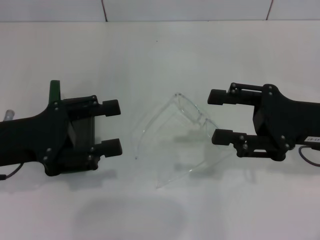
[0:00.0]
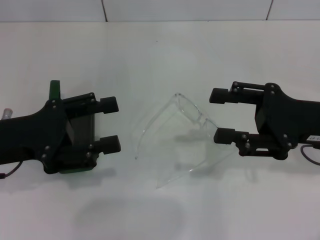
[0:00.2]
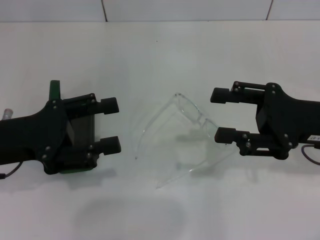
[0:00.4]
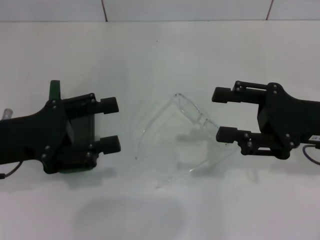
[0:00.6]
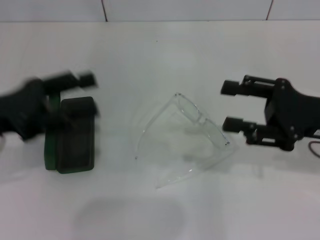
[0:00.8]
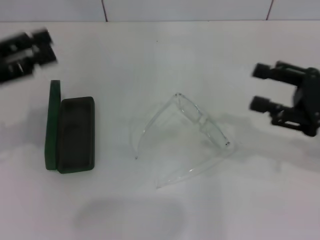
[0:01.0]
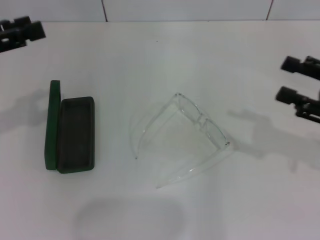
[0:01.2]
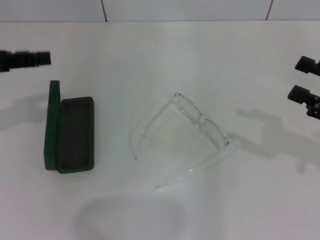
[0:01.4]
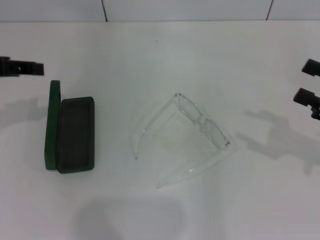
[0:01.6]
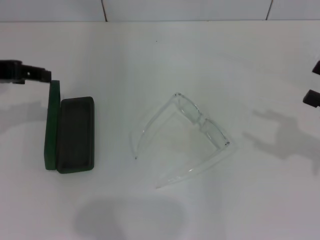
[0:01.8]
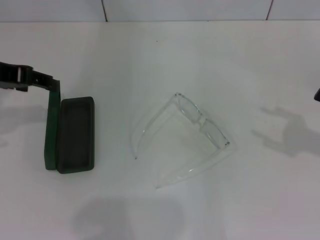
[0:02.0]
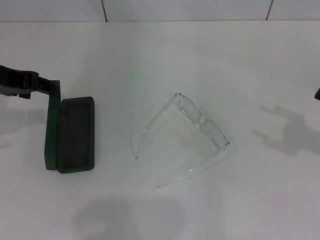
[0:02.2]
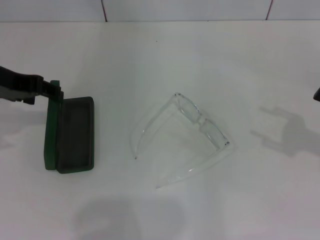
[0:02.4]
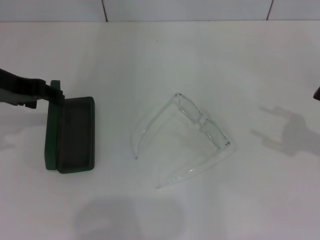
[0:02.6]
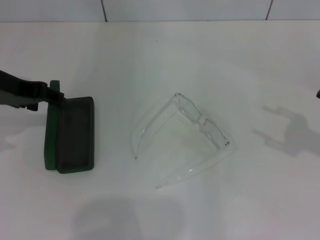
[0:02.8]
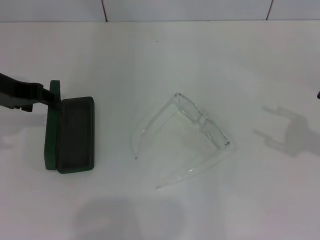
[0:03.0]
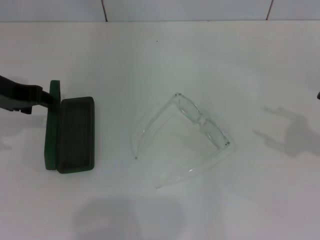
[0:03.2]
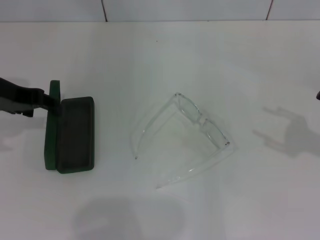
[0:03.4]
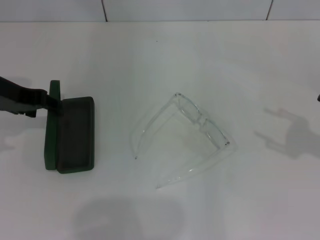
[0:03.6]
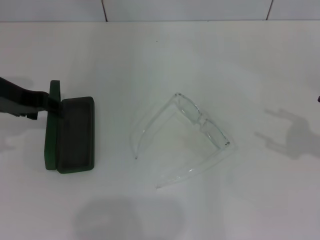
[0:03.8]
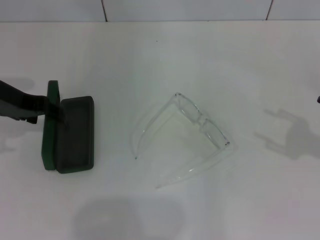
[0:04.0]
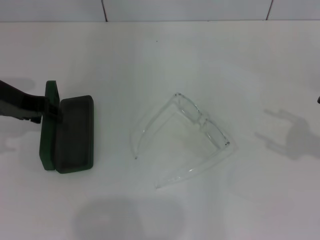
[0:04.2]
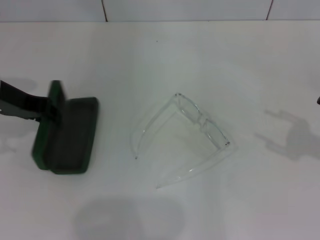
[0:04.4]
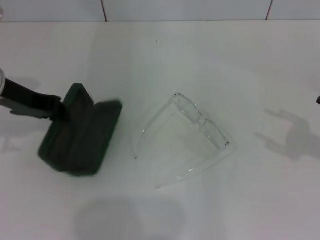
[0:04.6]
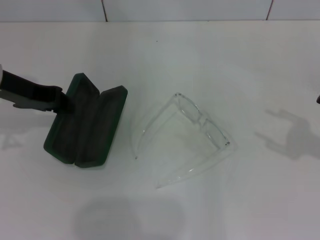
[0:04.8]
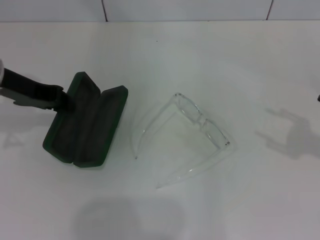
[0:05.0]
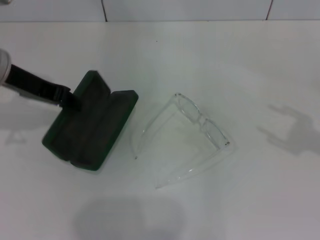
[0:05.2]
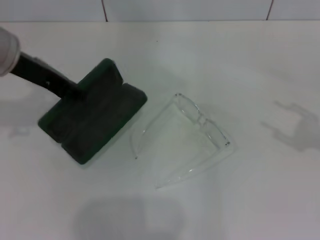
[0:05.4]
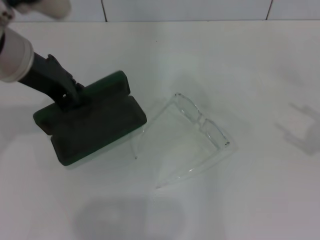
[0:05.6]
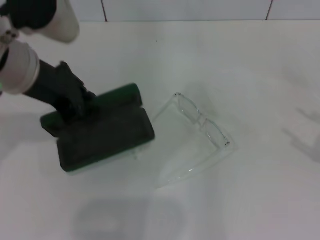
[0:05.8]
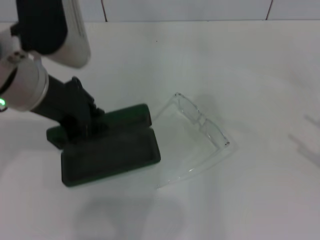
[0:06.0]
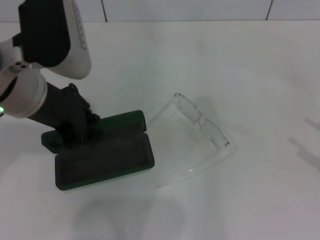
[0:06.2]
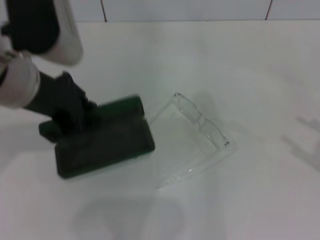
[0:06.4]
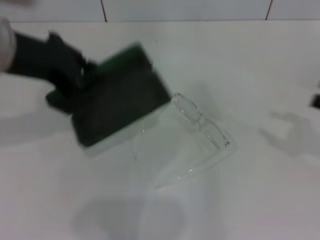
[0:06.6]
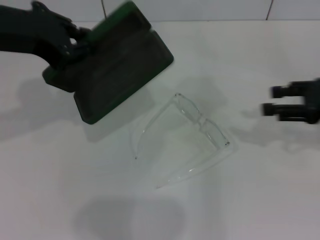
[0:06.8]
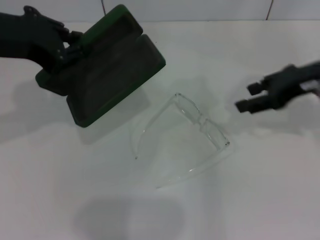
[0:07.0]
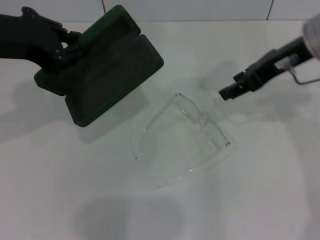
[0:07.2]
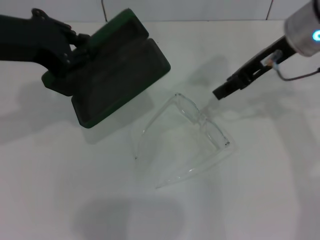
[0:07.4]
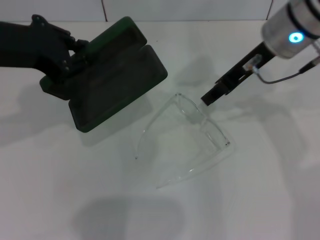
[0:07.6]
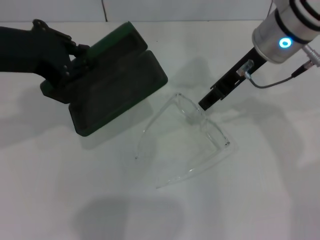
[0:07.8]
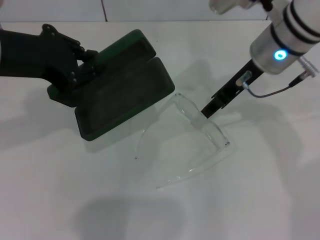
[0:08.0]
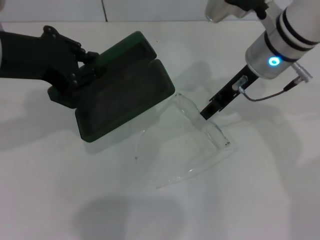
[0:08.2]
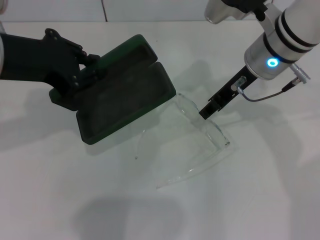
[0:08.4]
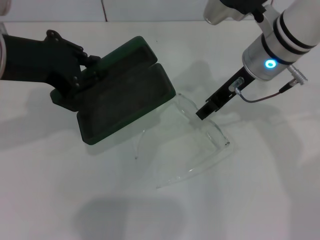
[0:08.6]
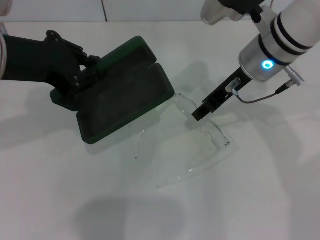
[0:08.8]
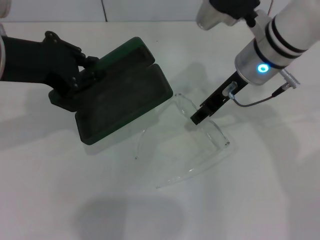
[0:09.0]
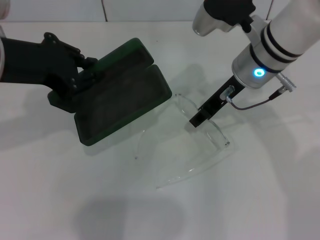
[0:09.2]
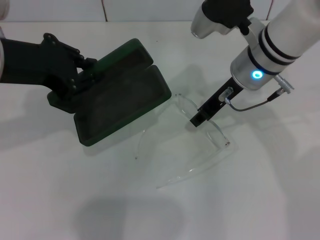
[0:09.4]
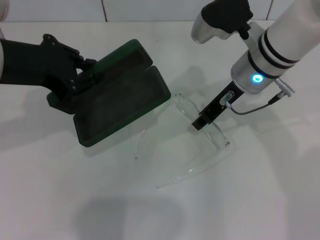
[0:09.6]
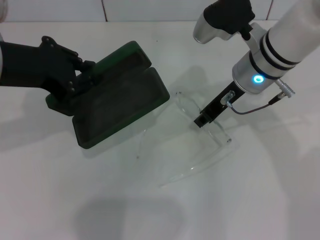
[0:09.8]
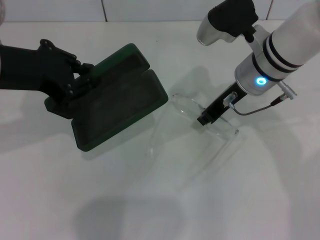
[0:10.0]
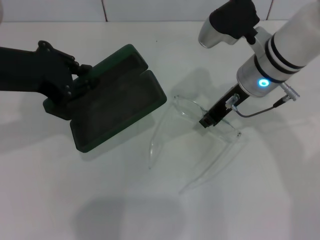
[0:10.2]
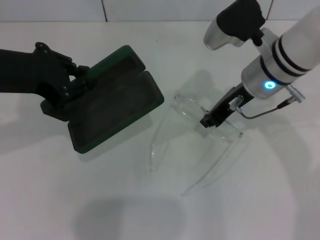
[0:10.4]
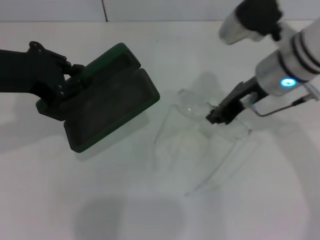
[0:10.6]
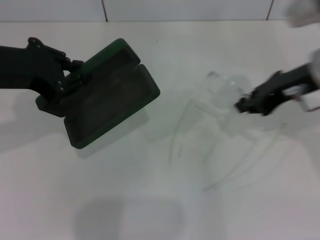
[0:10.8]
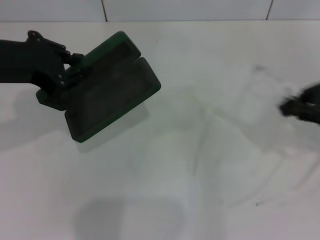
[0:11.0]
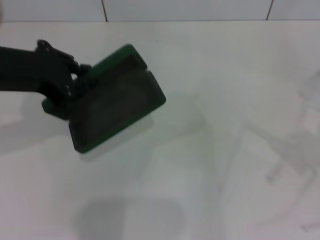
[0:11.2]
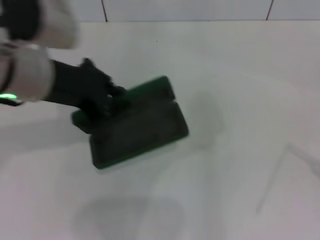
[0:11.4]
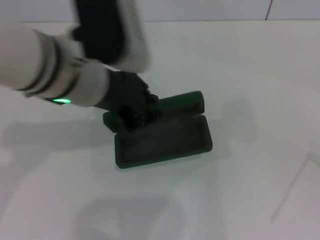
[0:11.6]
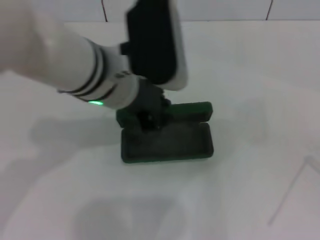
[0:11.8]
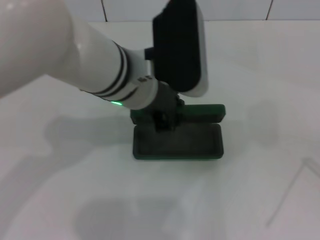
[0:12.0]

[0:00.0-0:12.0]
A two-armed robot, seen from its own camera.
Step, 0:00.0 to 0:04.0: Grab the glasses case with your left hand.
Step, 0:04.2 to 0:09.8: Grab the eyeglass frame with your right hand.
0:00.0 to 0:01.6: The left gripper heads upward and forward, covering about 10 cm; the right gripper shifts roughly 10 cm to the right.
0:01.6 to 0:03.0: The left gripper ends up approximately 5 cm from where it was.
0:03.0 to 0:04.4: The grippers make only small movements.
0:04.4 to 0:06.0: The left gripper travels to the right and upward by roughly 10 cm, and closes up. The right gripper shifts about 5 cm backward.
0:06.0 to 0:07.6: The right gripper moves to the left, forward and upward, roughly 35 cm, while the left gripper shifts by roughly 5 cm.
0:07.6 to 0:09.0: The right gripper travels downward by roughly 5 cm.
0:09.0 to 0:10.4: The right gripper closes its fingers.
0:10.4 to 0:12.0: The right gripper is displaced to the right and backward by approximately 40 cm, while the left gripper moves to the right, some 15 cm.

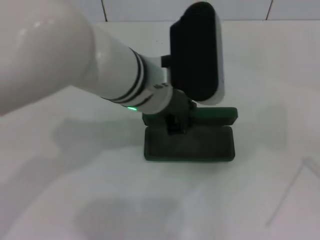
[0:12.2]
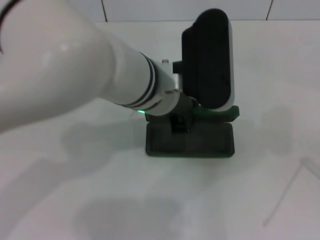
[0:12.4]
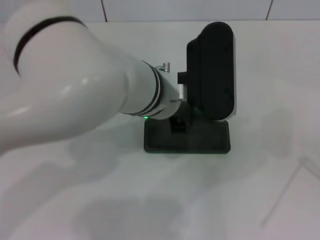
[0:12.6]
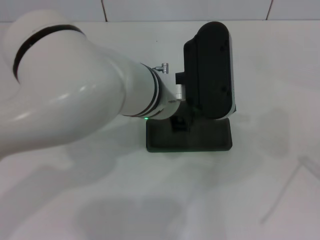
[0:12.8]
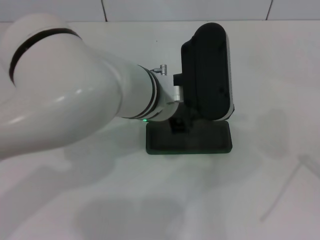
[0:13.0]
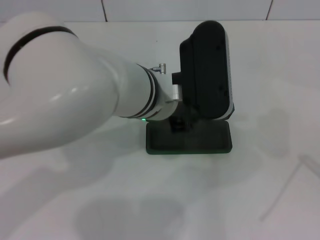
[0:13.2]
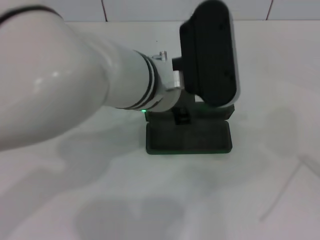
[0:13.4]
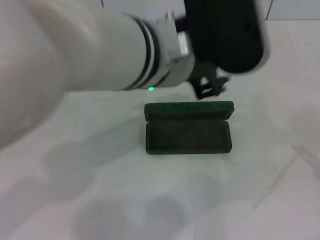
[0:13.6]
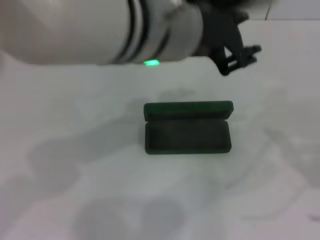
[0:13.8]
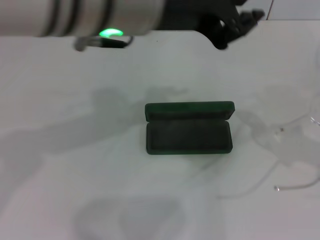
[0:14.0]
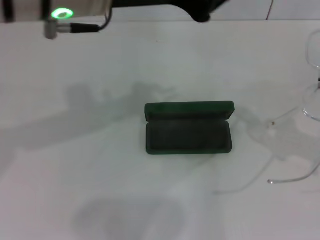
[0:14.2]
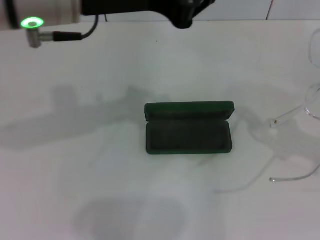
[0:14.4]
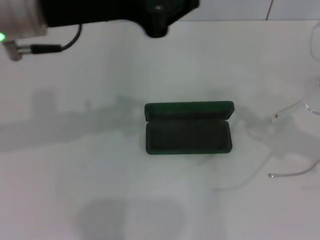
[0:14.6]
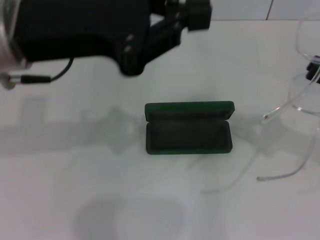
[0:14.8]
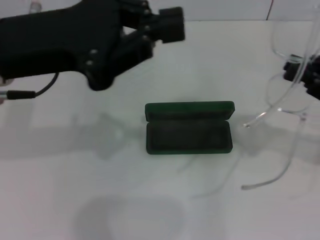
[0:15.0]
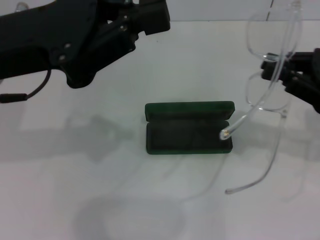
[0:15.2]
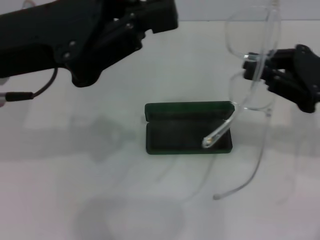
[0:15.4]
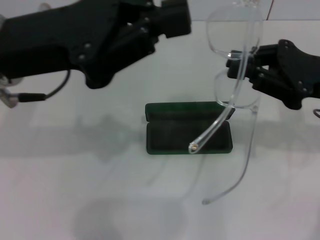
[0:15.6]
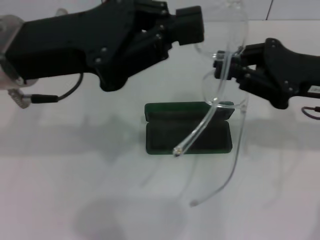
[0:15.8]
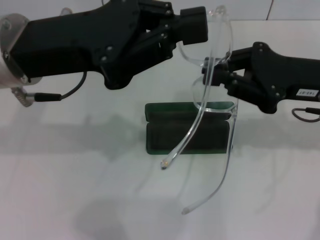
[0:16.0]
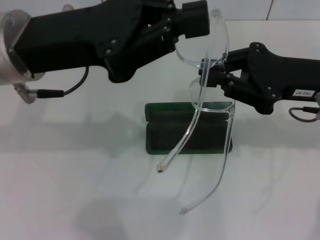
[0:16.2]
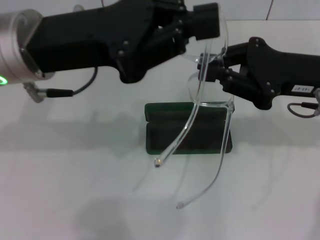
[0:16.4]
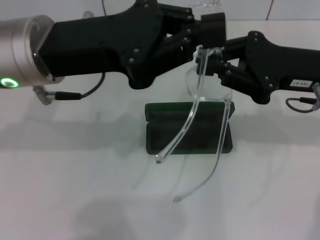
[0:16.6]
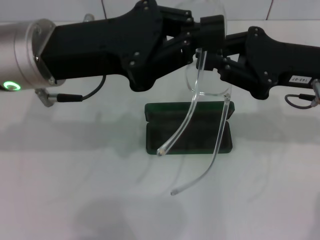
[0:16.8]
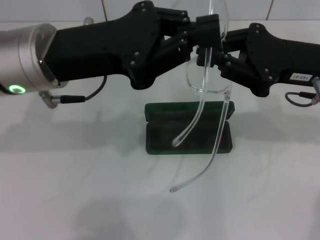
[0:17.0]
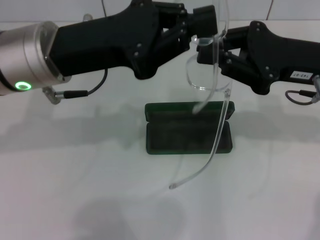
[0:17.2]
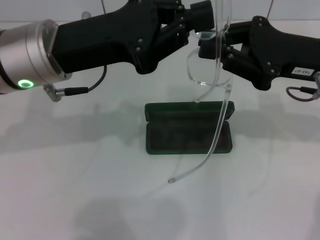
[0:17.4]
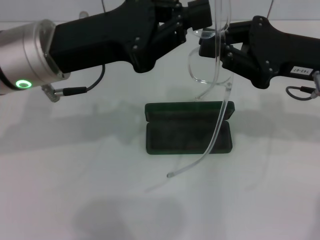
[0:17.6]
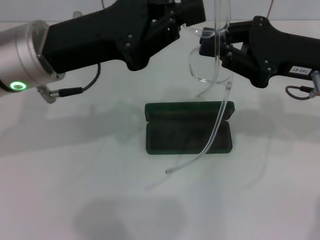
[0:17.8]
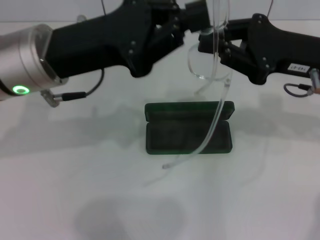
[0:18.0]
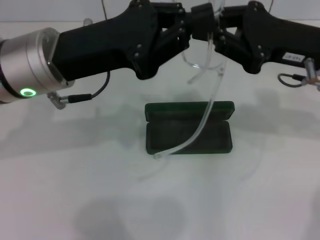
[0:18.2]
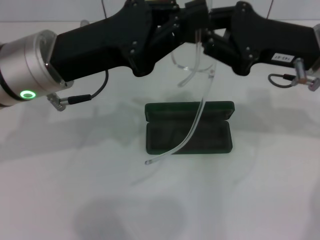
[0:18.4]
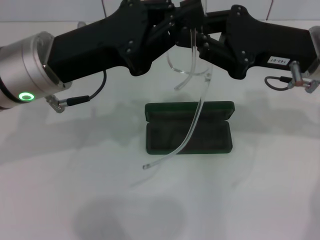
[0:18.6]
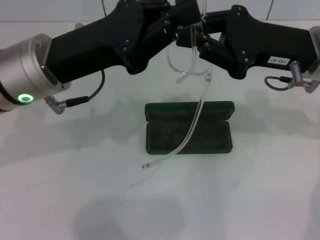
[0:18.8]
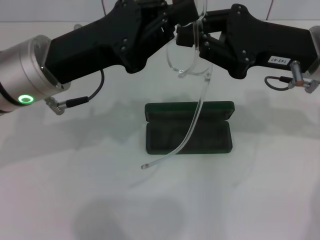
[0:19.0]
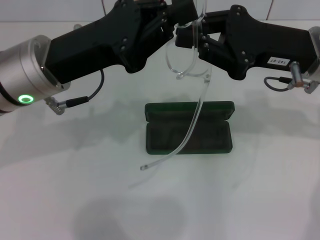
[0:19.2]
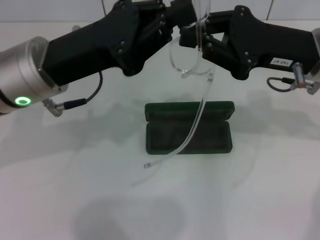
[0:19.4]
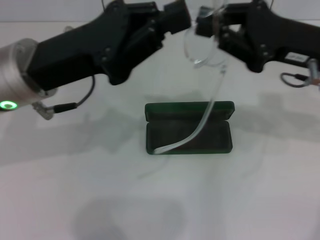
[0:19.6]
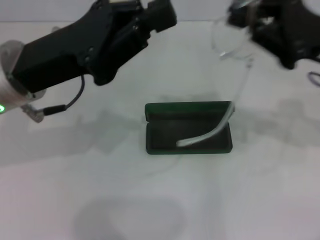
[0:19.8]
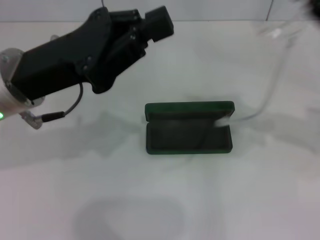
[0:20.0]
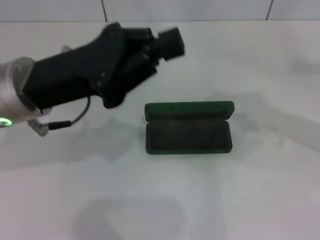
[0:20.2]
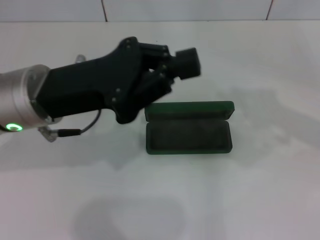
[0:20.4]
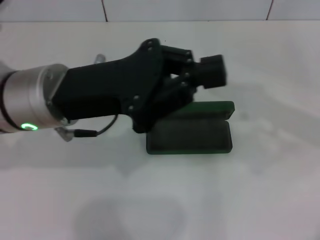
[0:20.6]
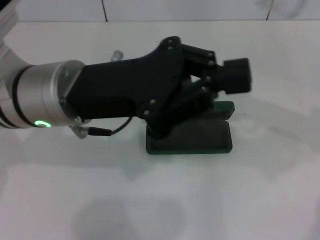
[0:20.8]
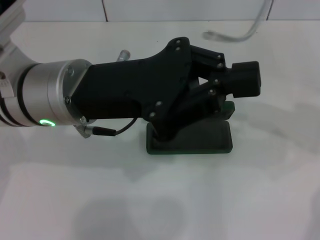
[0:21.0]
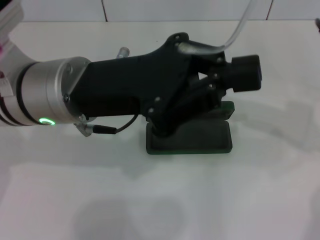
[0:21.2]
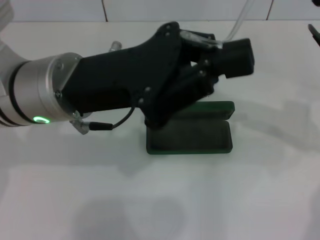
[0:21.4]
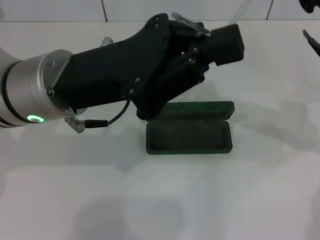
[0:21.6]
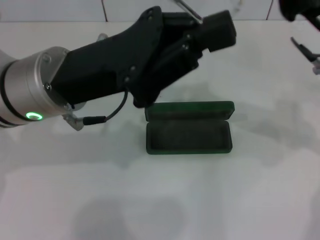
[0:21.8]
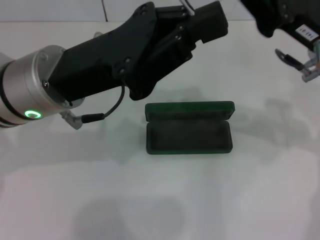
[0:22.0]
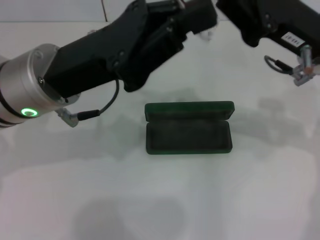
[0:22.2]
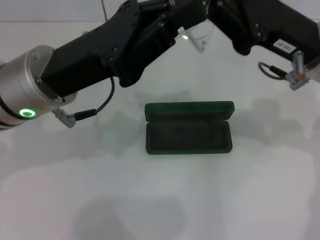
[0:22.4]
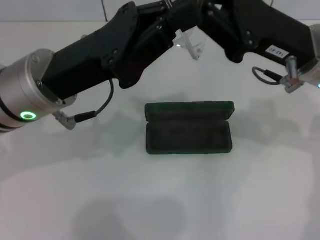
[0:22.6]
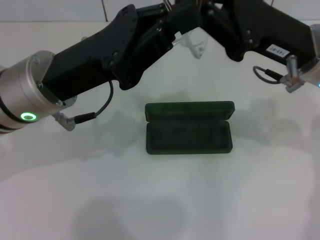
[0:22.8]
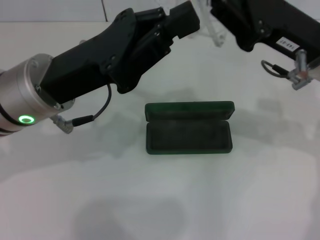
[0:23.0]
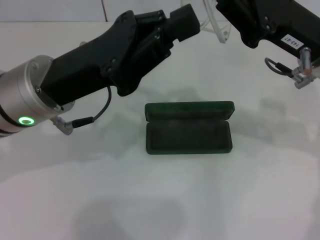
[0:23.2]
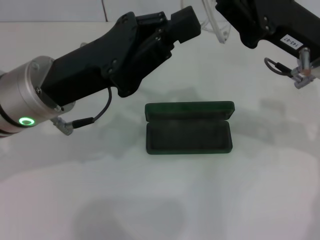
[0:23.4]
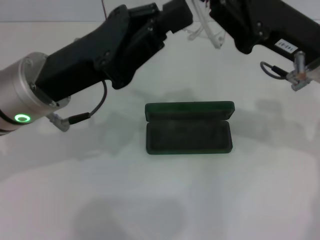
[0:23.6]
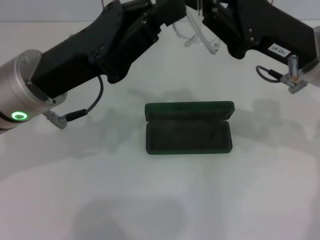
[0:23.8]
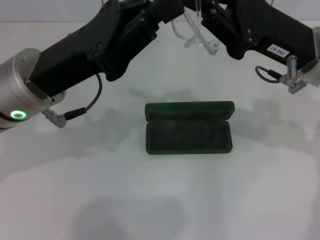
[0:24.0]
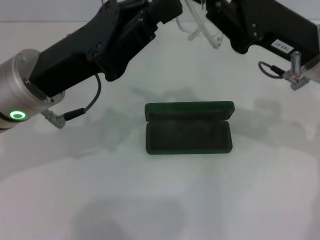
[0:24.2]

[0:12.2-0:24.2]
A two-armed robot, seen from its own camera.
0:12.2 to 0:13.8: The left gripper goes roughly 10 cm upward, and opens its fingers.
0:13.8 to 0:15.2: The right gripper goes roughly 15 cm to the left and forward. Meanwhile the left gripper heads to the left, covering about 15 cm, and closes up.
0:15.2 to 0:16.6: The right gripper heads to the left, covering some 5 cm. The left gripper changes place by roughly 5 cm.
0:18.2 to 0:19.8: The grippers make only small movements.
0:19.8 to 0:21.2: The left gripper goes roughly 5 cm to the right. Meanwhile the right gripper travels to the right and back again, some 5 cm each way.
0:21.2 to 0:22.6: The right gripper moves some 5 cm.
0:22.6 to 0:24.2: The grippers move only a little.
